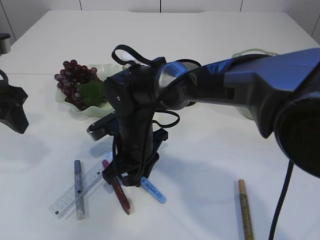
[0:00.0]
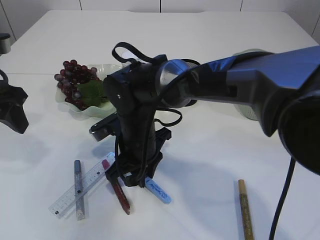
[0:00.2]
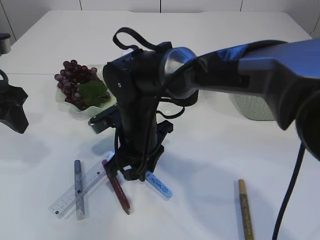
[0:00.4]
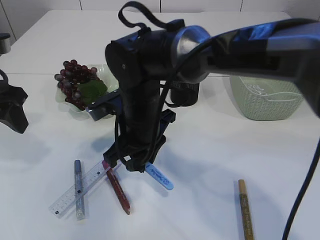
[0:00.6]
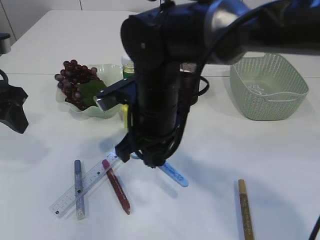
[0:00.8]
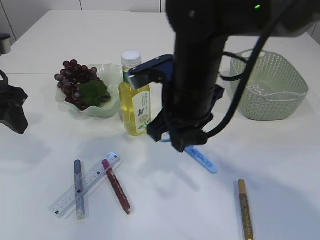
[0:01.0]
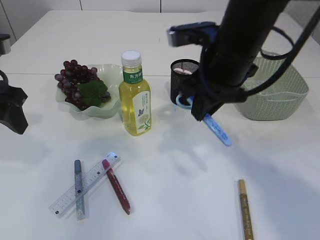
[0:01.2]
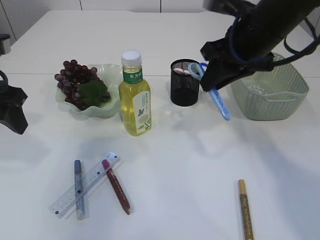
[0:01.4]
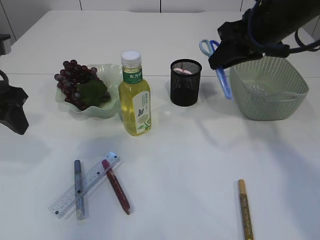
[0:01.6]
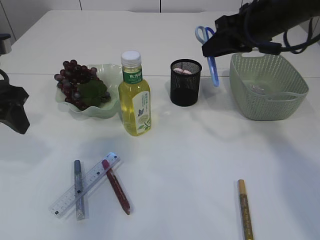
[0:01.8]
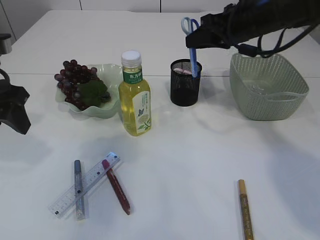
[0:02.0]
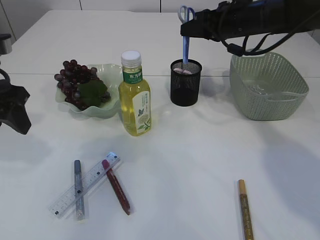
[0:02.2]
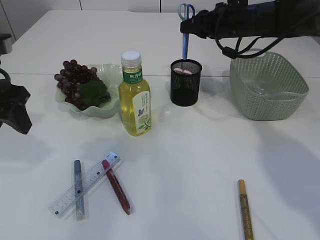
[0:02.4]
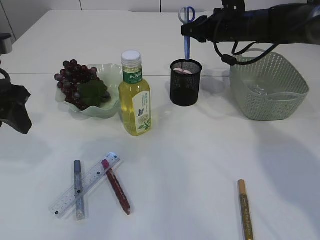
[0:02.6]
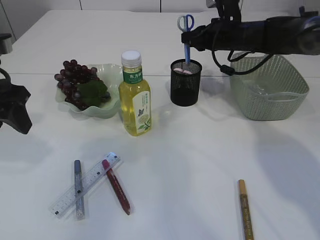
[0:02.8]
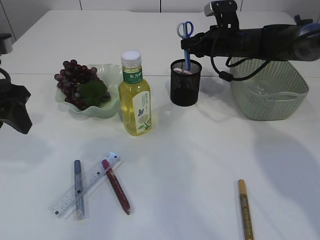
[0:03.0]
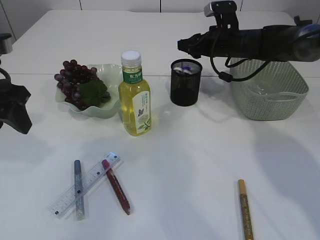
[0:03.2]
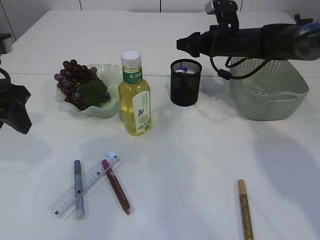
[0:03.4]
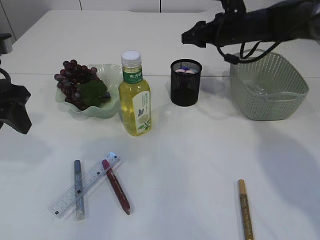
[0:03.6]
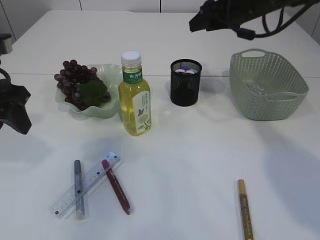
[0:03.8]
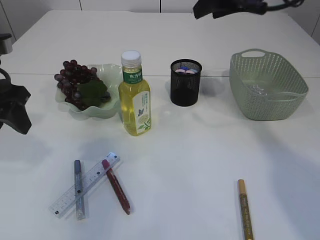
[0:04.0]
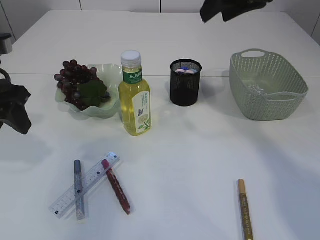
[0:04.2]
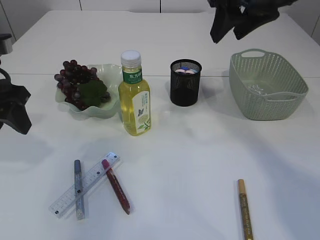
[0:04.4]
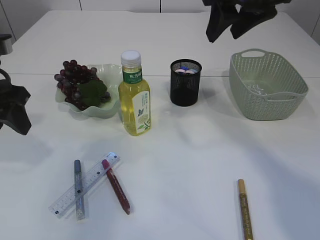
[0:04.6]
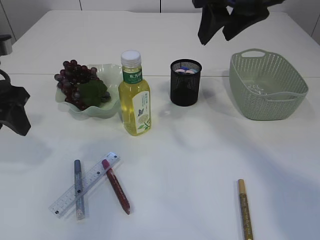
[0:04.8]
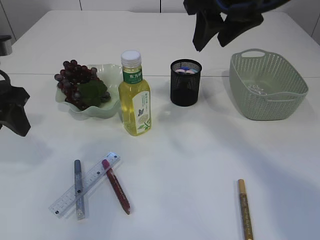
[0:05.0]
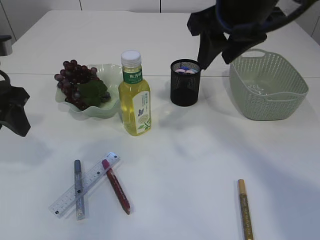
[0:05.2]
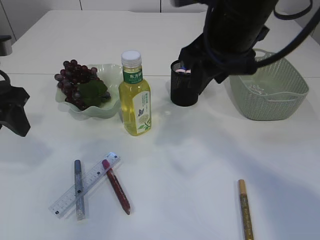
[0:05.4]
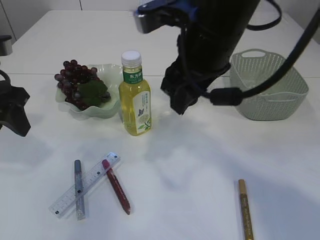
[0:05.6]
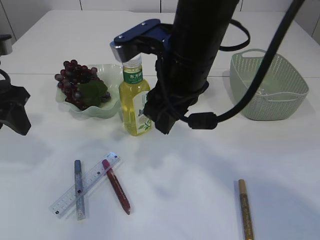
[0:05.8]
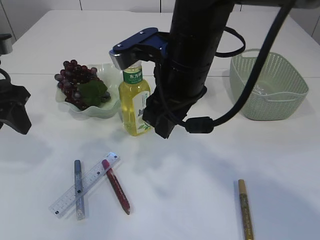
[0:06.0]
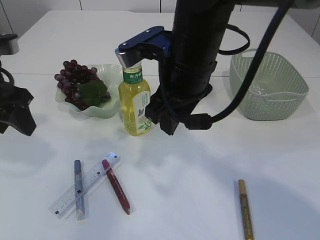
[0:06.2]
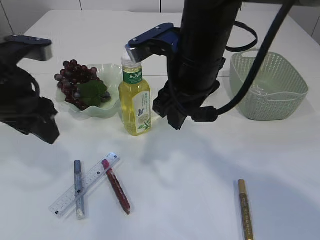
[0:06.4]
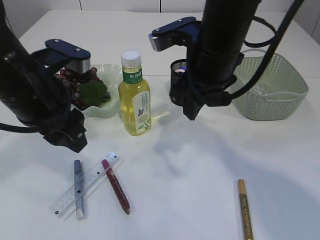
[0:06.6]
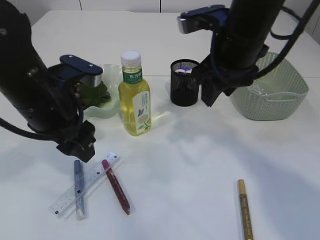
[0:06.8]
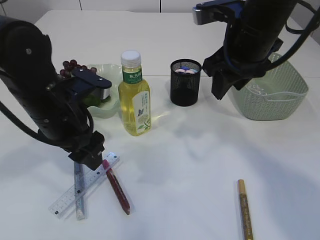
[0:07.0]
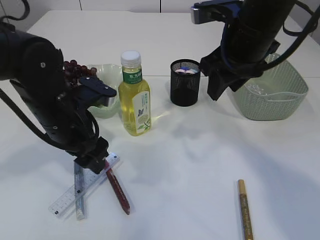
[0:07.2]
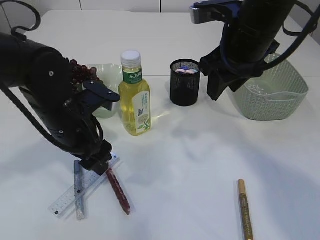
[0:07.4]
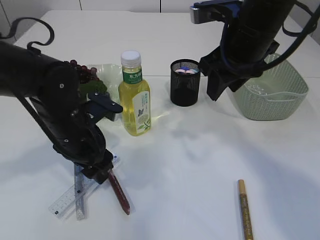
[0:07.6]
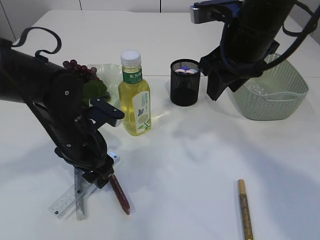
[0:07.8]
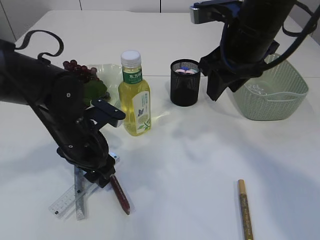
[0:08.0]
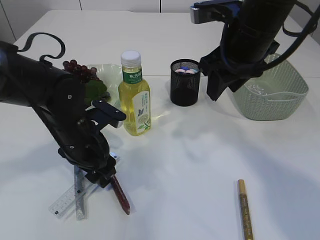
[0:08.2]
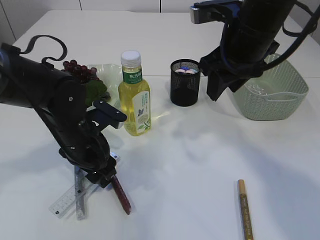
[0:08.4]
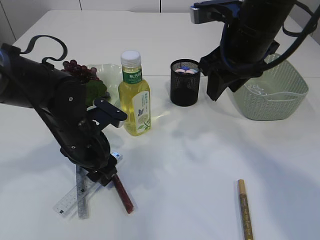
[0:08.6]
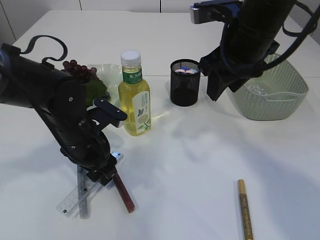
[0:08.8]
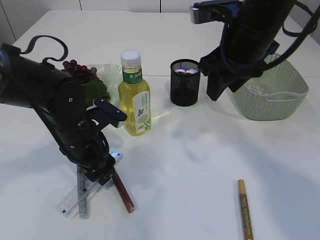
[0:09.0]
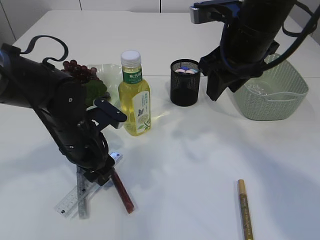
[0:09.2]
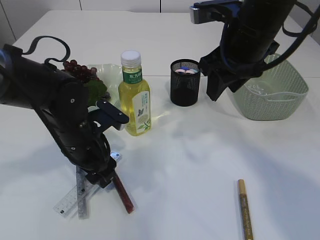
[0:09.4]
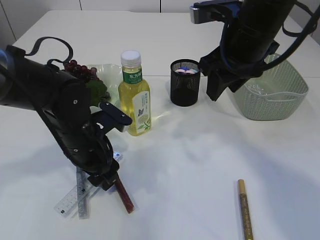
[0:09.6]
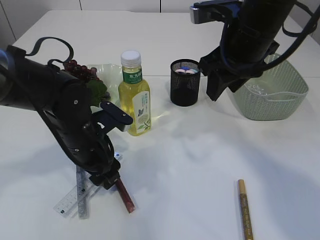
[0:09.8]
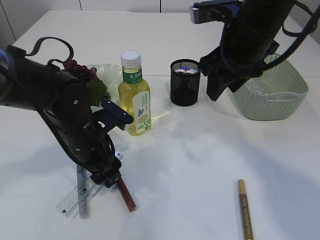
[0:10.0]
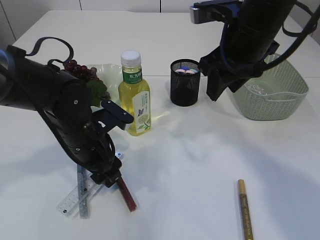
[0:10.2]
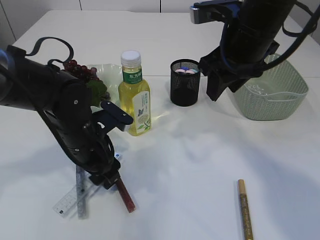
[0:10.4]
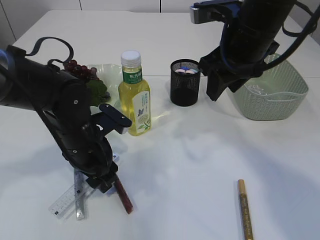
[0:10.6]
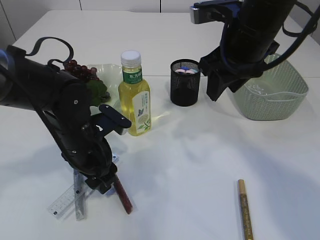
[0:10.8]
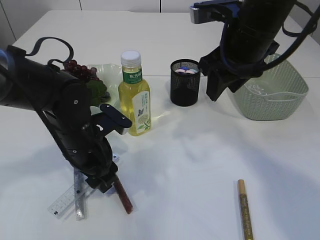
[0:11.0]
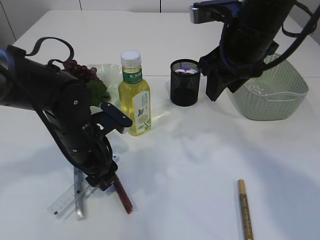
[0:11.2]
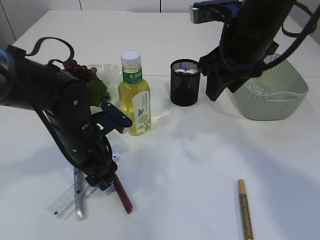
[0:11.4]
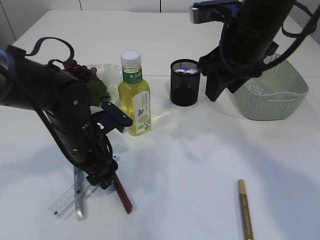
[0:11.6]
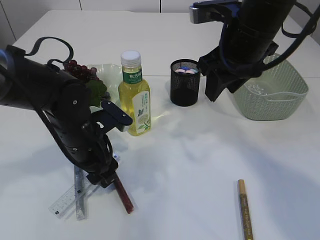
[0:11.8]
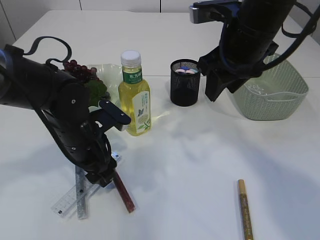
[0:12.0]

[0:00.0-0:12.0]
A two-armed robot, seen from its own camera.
Step, 0:01.2 to 0:03.6: Place the blue scissors into the pen holder.
0:00.0 to 0:01.6: The right gripper is displaced to the right and upward by about 30 cm.
0:01.6 to 0:03.0: The right gripper shifts some 20 cm forward and downward.
0:03.0 to 0:04.4: The right gripper moves upward and backward, roughly 25 cm.
0:04.4 to 0:06.0: The right gripper shifts approximately 15 cm to the left, downward and backward.
0:06.0 to 0:07.6: The left gripper goes roughly 15 cm to the right and downward, while the right gripper is displaced to the right by some 10 cm.
0:07.6 to 0:09.0: The grippers make only small movements.
0:09.0 to 0:12.0: Both grippers stay put.

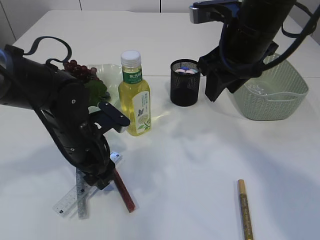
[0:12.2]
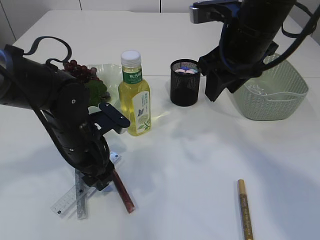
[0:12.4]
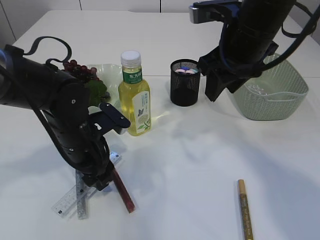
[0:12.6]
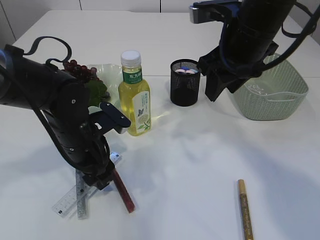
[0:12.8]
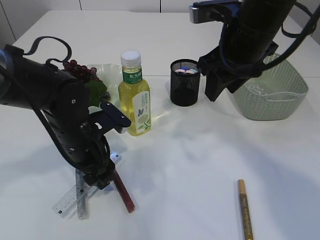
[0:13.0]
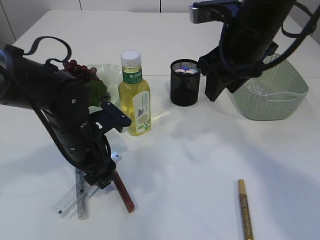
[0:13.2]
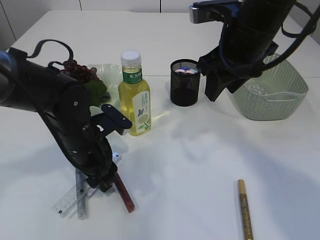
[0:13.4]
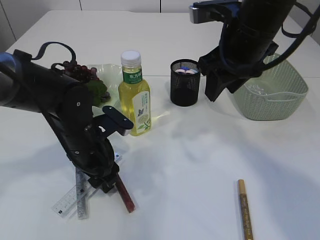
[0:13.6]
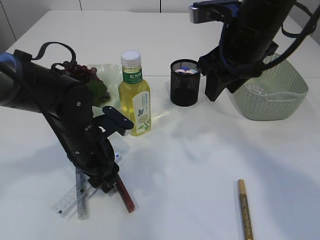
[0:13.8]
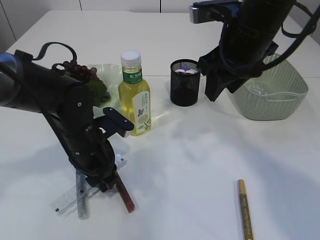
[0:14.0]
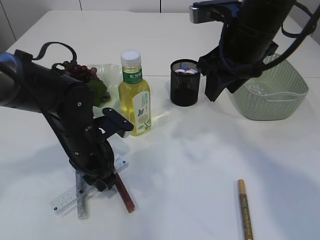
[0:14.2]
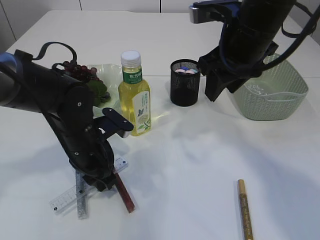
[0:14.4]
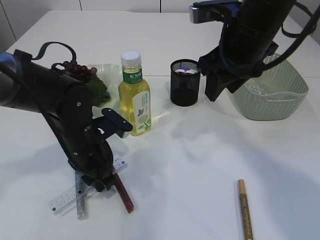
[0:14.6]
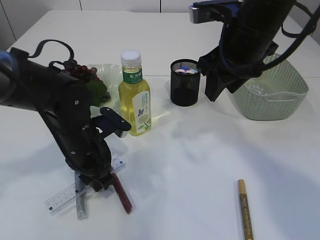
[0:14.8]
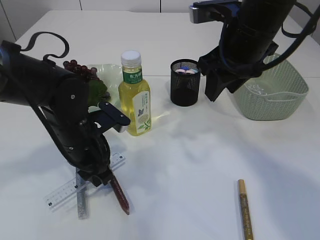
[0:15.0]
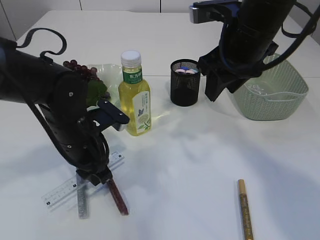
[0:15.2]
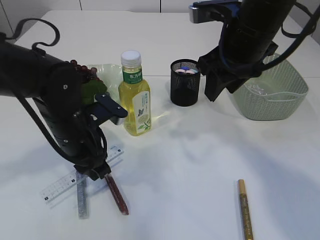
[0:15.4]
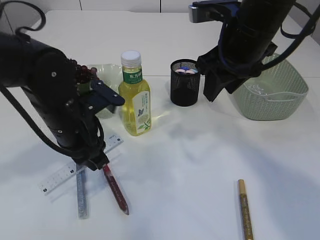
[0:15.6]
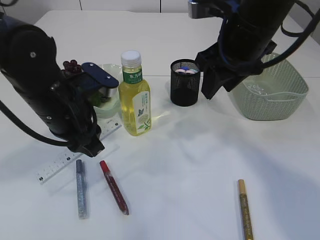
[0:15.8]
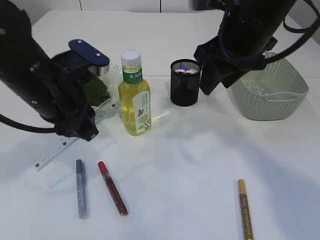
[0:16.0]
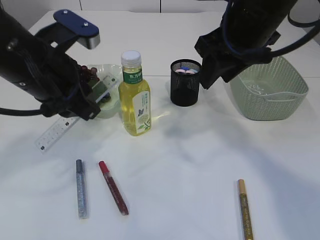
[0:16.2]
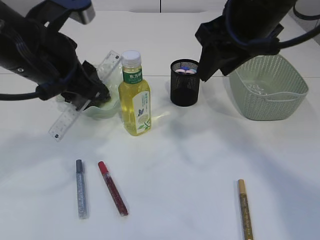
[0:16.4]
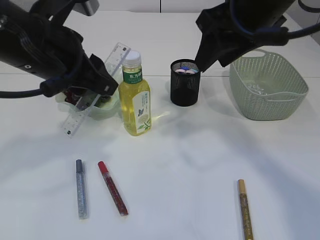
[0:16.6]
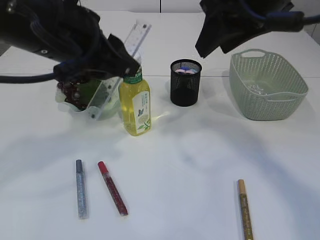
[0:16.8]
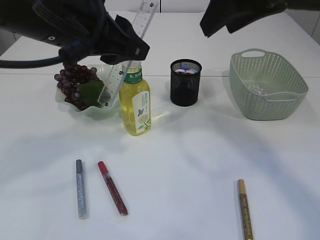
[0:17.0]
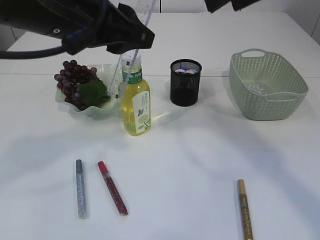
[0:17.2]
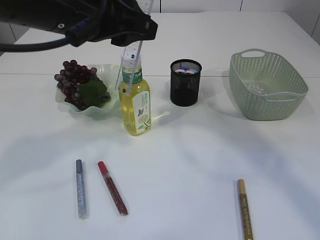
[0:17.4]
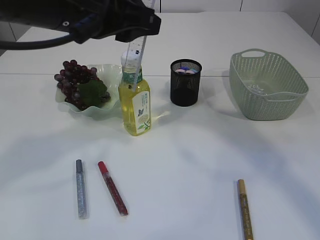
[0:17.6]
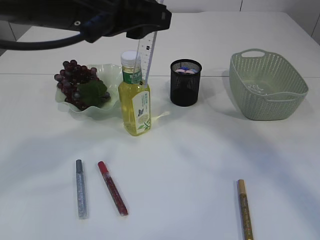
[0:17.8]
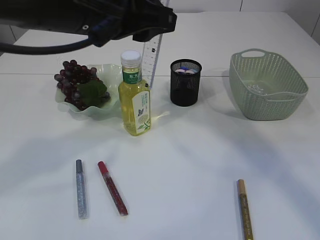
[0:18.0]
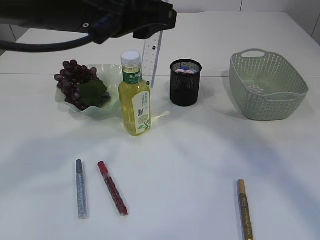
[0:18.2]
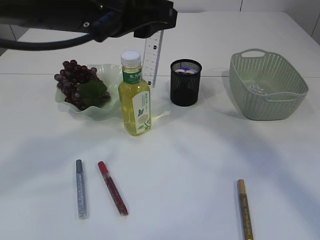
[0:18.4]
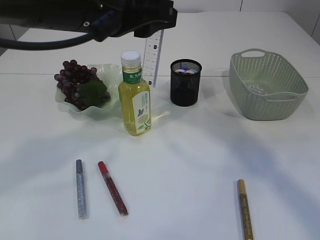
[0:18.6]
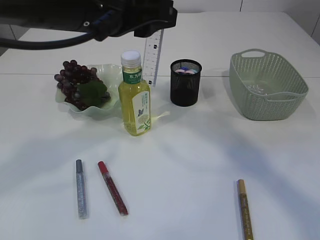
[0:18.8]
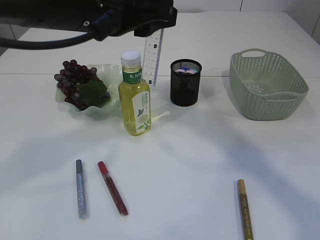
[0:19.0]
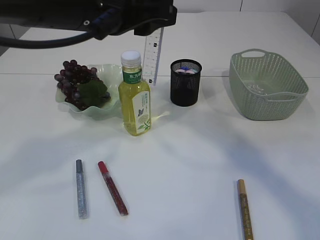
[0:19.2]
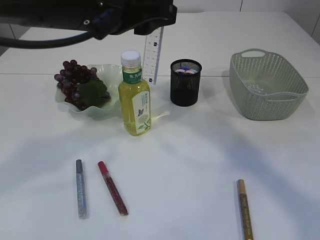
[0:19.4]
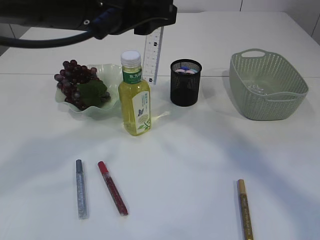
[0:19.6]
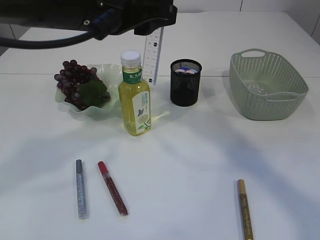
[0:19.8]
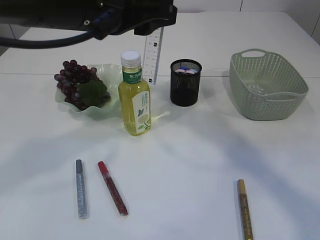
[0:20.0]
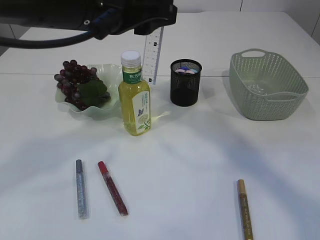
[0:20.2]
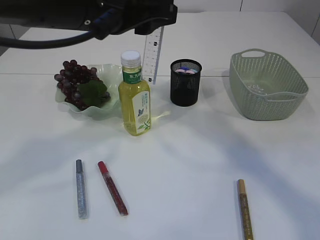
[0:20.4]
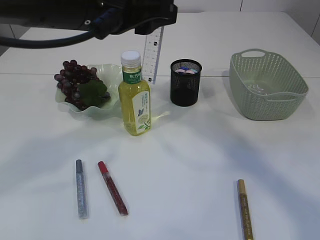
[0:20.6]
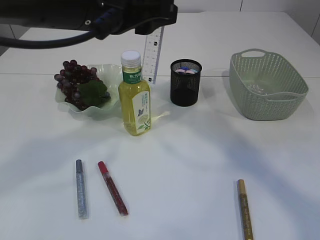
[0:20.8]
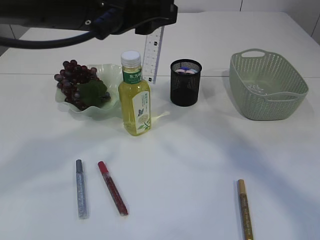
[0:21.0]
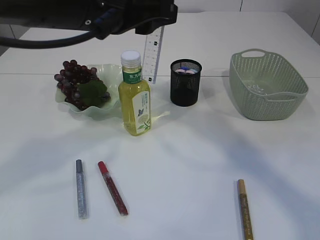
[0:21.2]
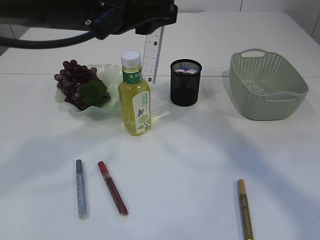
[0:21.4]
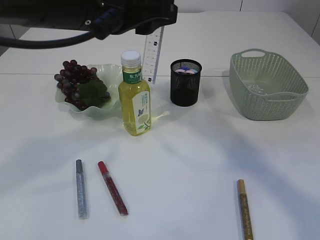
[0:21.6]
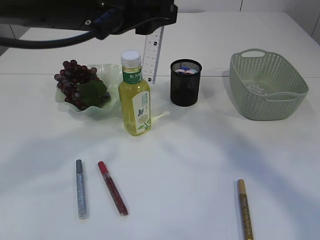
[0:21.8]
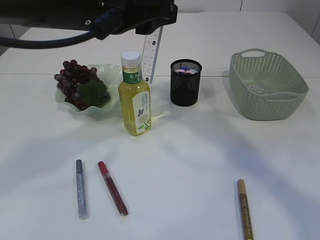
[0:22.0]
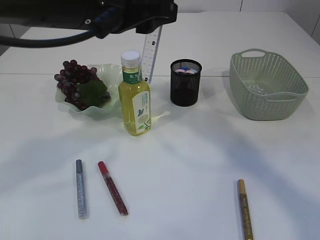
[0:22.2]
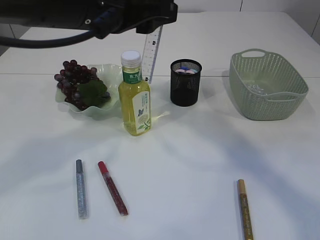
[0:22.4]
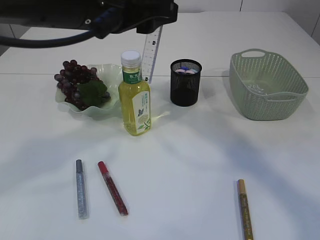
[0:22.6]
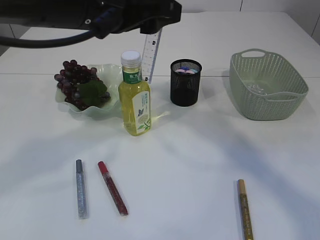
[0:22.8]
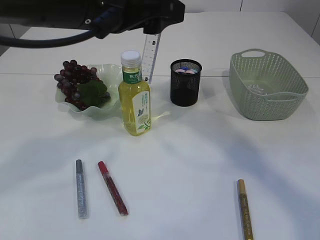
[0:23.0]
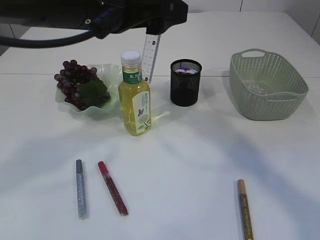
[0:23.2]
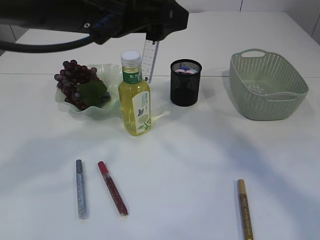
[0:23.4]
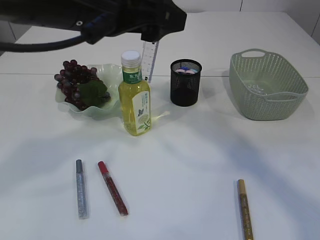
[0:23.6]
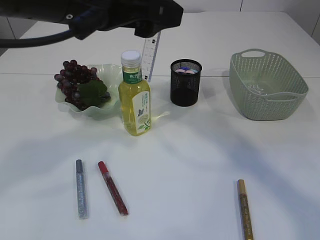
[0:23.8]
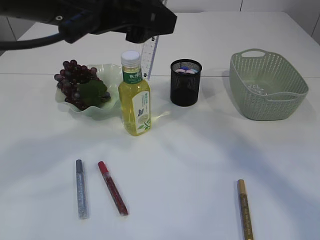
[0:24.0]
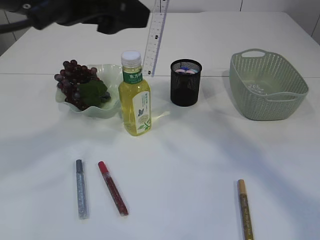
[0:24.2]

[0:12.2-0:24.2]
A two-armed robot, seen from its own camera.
Step, 0:12.2 to 0:16.0: pick up the ruler.
0:12.2 to 0:13.8: Both grippers stay about where they are.
0:13.8 to 0:15.2: The left gripper closes its fingers.
0:15.2 to 0:16.6: The left gripper is displaced upward by about 15 cm. The right gripper travels upward by roughly 5 cm.
0:16.6 to 0:18.2: The left gripper is displaced to the right by some 5 cm, while the right gripper heads upward, covering approximately 10 cm.
0:18.2 to 0:19.8: The right gripper shifts by roughly 5 cm, and closes its fingers.
0:19.8 to 0:22.6: Neither gripper changes place.
0:22.6 to 0:24.2: The left gripper opens its fingers.
